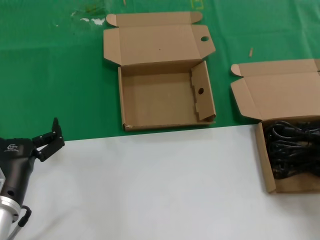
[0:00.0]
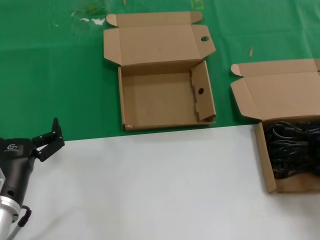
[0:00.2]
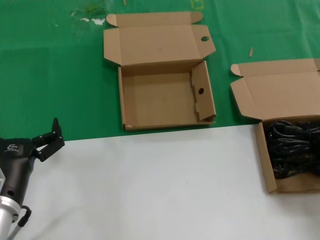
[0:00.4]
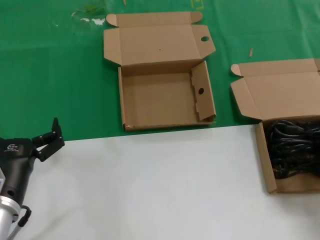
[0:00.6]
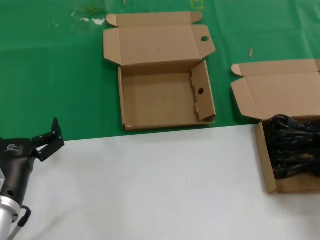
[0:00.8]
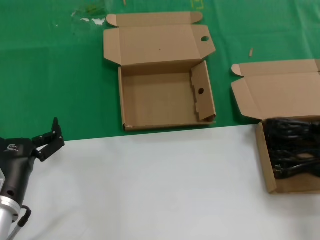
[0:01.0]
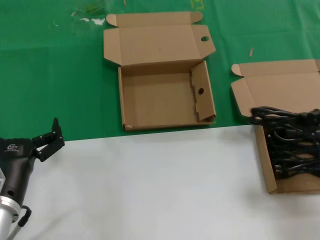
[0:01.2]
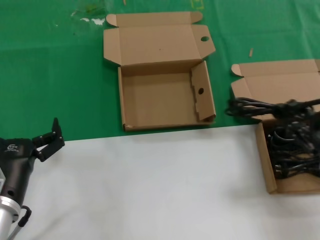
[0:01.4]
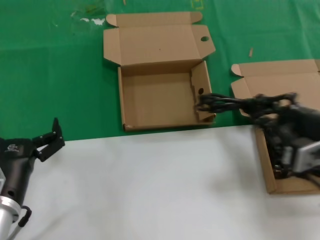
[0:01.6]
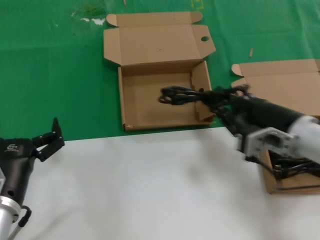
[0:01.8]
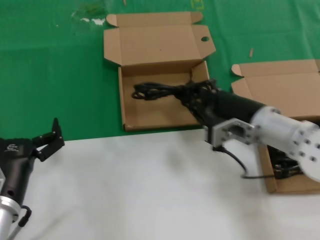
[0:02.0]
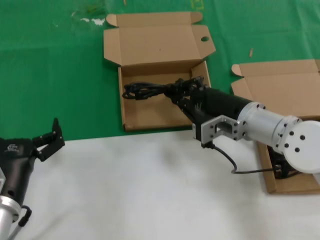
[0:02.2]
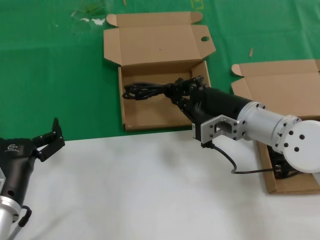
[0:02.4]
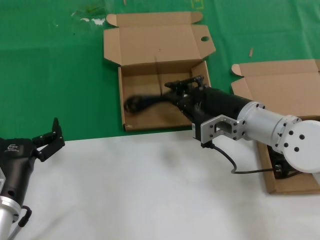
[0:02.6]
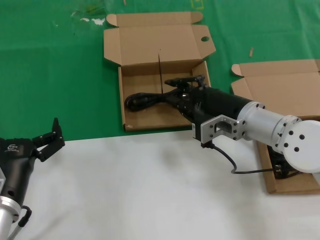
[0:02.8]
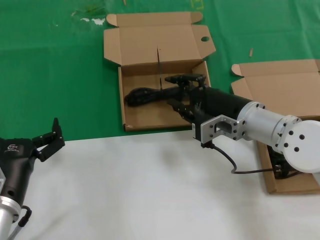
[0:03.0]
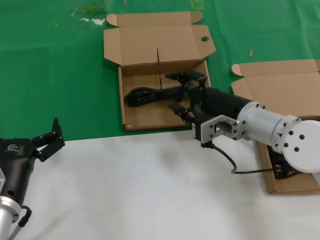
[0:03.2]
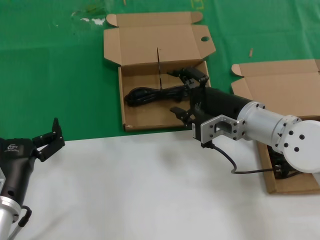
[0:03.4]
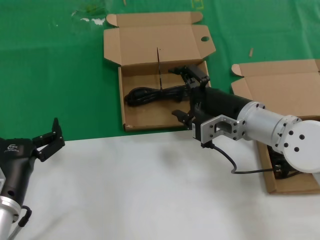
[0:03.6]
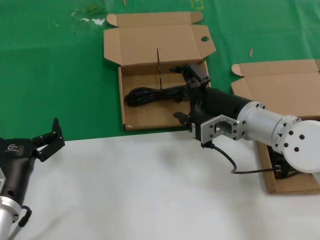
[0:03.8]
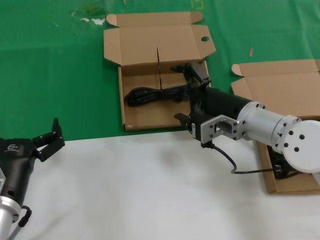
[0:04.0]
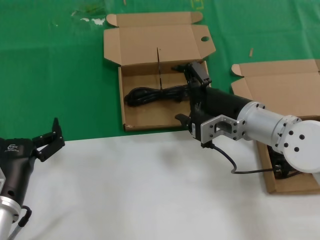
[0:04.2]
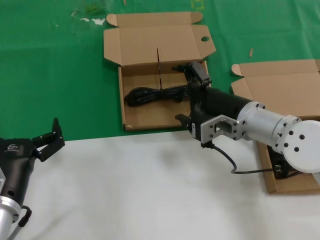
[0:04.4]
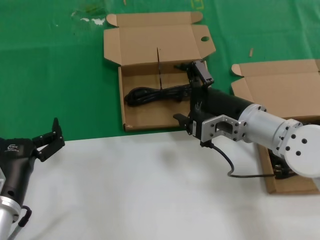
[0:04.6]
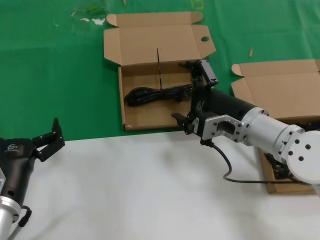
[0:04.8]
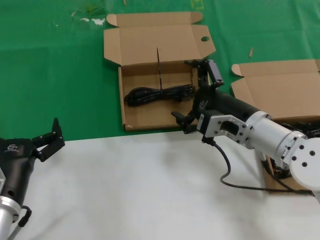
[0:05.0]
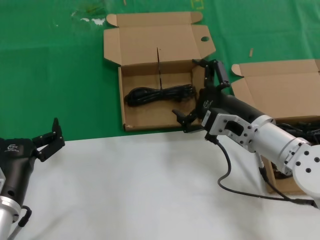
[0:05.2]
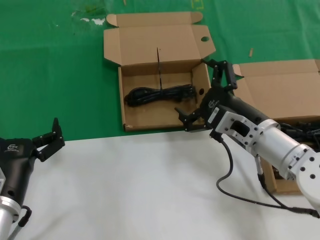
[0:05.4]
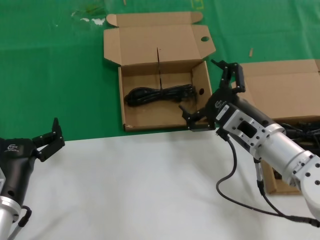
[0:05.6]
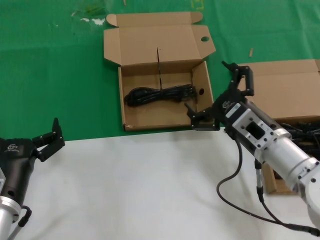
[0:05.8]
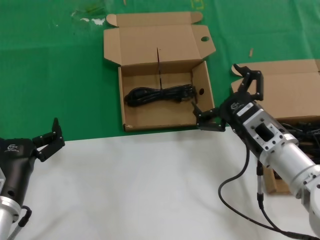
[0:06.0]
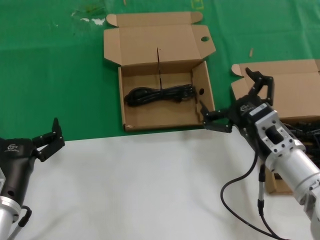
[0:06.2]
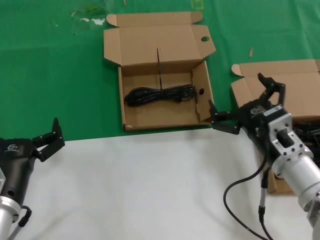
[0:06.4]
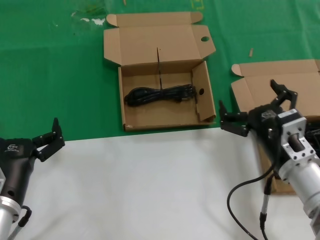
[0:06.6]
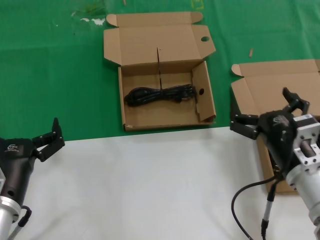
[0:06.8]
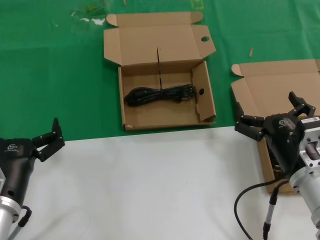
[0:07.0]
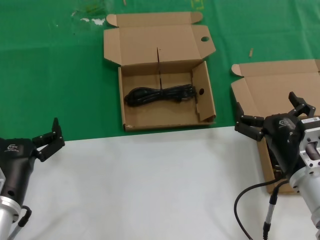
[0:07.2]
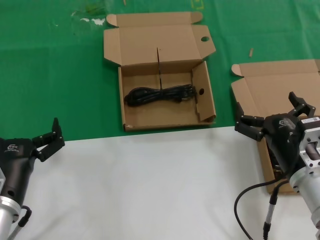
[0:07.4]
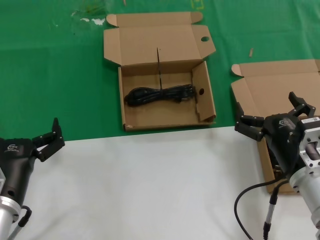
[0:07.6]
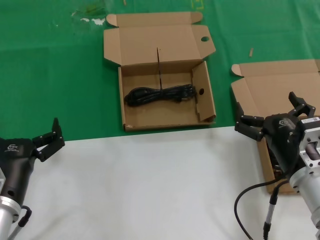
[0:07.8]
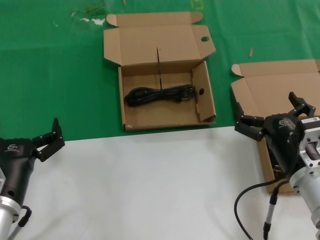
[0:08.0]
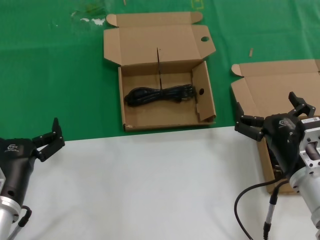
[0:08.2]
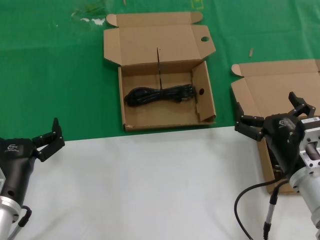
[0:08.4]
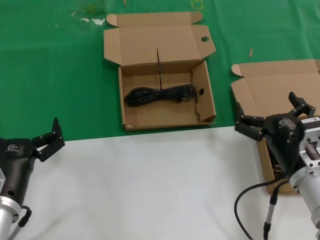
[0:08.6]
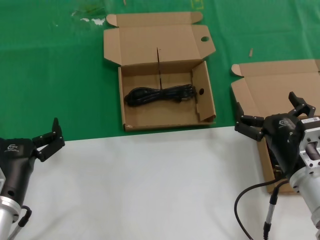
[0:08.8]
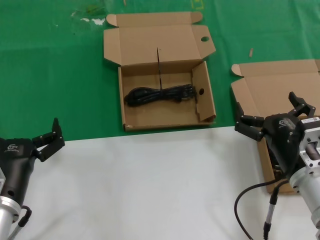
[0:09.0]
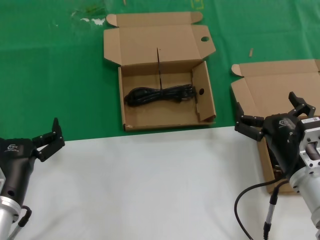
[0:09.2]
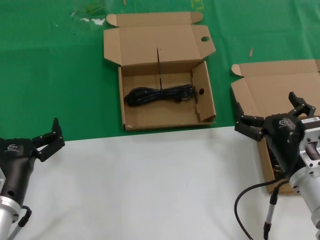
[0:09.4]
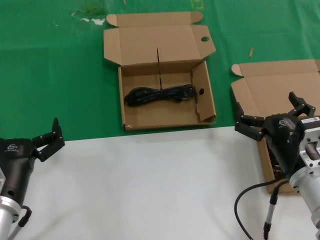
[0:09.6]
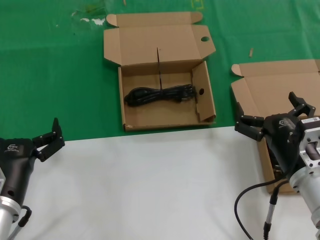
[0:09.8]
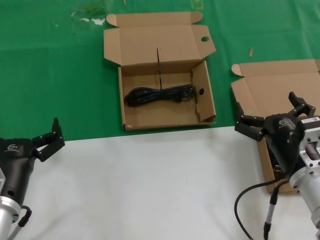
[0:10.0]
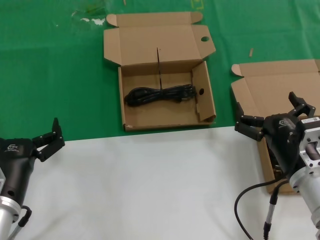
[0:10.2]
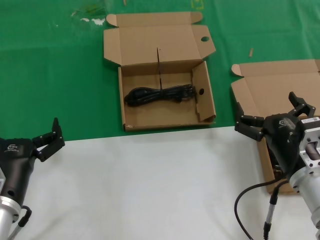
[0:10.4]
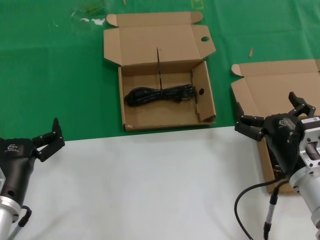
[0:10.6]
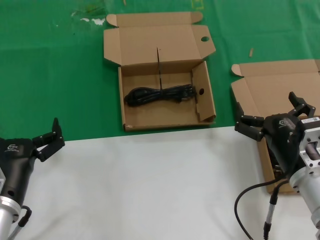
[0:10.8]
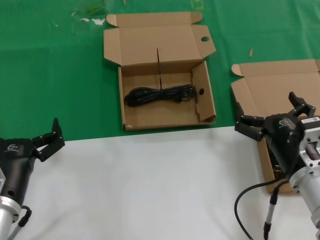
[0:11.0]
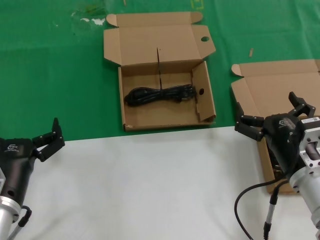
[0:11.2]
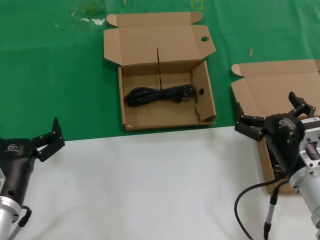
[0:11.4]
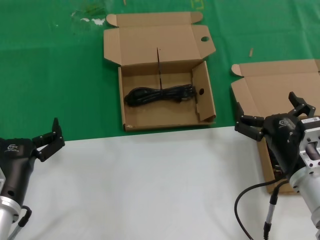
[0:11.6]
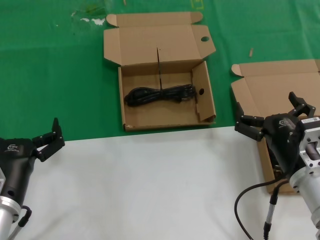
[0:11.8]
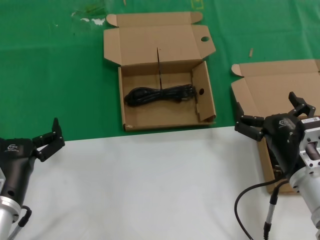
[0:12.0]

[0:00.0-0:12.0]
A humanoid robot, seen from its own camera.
Task of the whole recording: take the parts from the box containing them and put them into an empty box.
Step, 0:01.0 to 0:03.8: Place the data cable in the another box.
0:00.0 to 0:01.6: The right hand travels to the left by roughly 10 cm.
0:01.6 to 0:03.0: The right hand moves forward and to the left, roughly 20 cm.
0:03.0 to 0:04.4: Both hands stay about where they are.
0:04.4 to 0:06.0: The right hand moves backward, some 5 cm.
0:06.0 to 0:07.6: The right hand changes place by roughly 5 cm.
0:07.6 to 0:12.0: Both hands stay put.

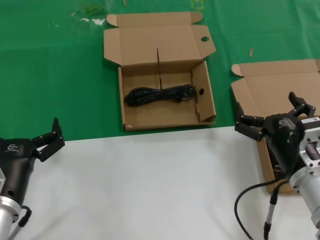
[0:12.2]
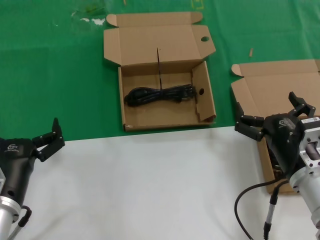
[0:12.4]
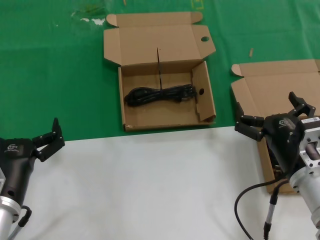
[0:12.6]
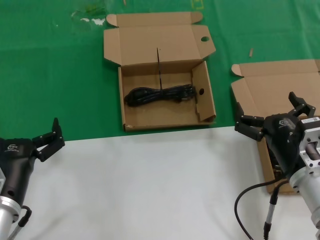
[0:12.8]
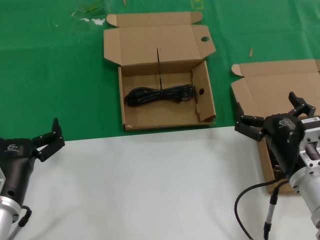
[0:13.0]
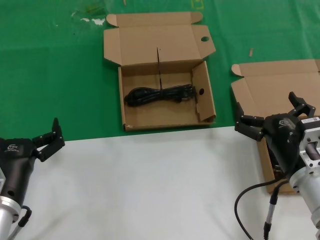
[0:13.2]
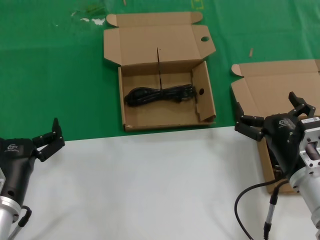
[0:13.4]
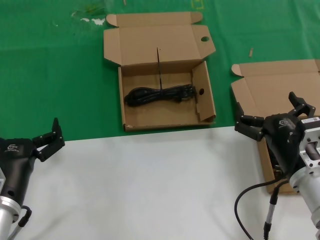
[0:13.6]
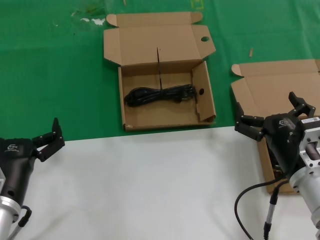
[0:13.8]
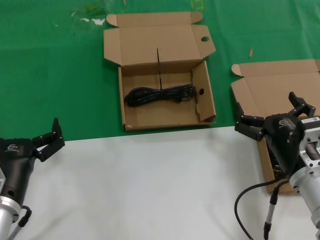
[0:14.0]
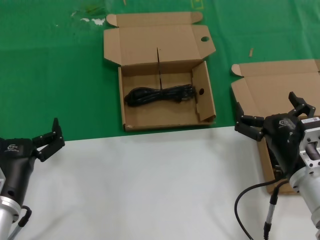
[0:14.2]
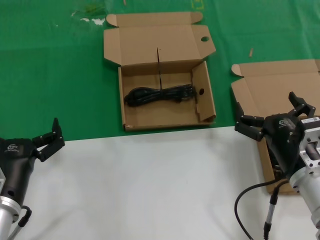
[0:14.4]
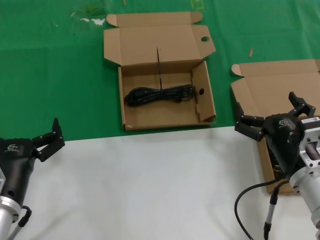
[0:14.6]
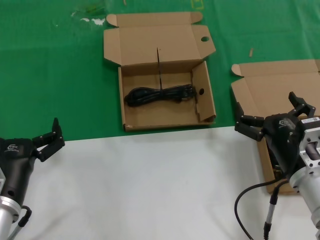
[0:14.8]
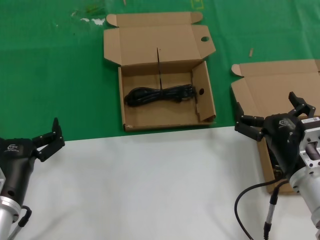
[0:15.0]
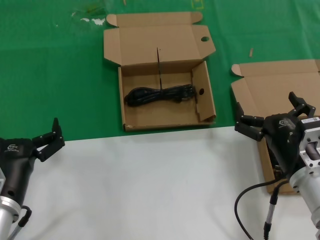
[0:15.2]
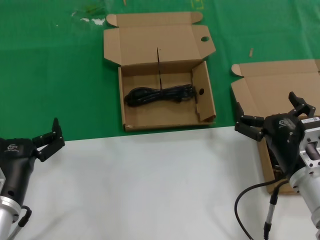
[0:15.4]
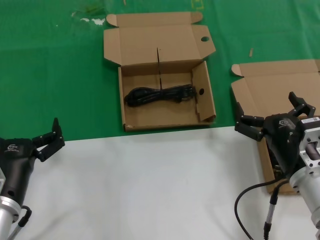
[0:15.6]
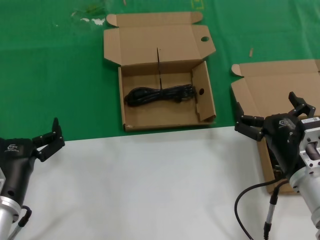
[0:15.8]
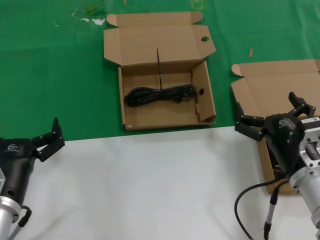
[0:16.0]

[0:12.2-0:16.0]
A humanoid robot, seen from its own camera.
Task of the whole recording: take the parts from the box containing them and put them into an empty box.
0:12.2 to 0:16.0: Both hands stay put.

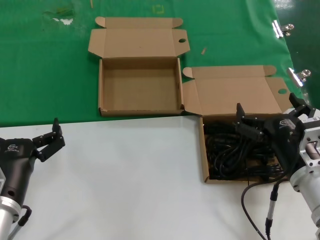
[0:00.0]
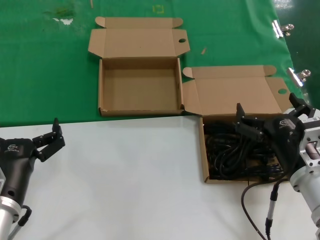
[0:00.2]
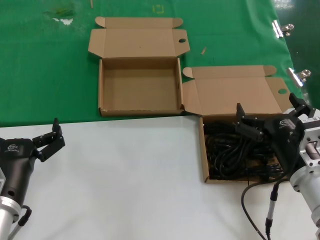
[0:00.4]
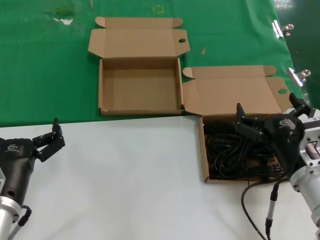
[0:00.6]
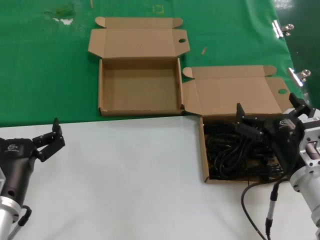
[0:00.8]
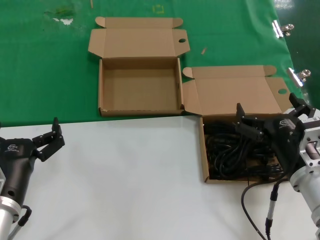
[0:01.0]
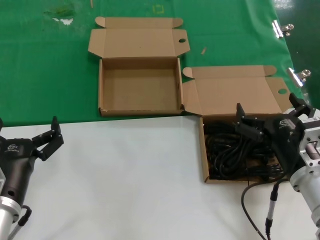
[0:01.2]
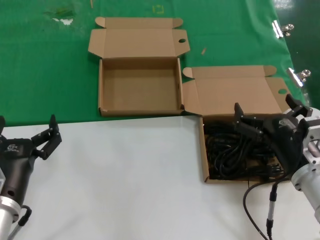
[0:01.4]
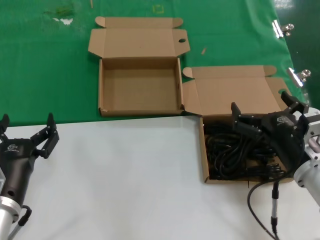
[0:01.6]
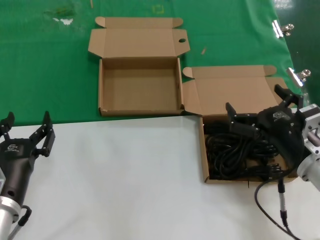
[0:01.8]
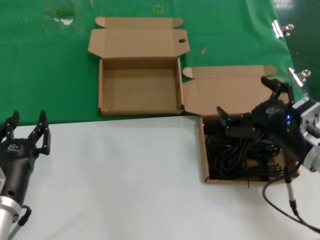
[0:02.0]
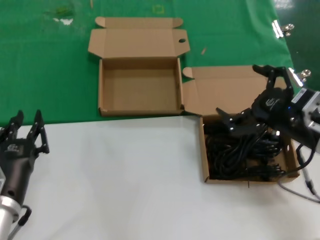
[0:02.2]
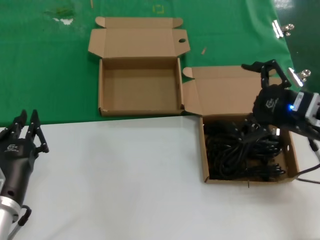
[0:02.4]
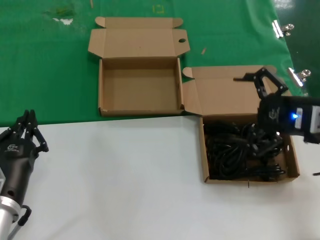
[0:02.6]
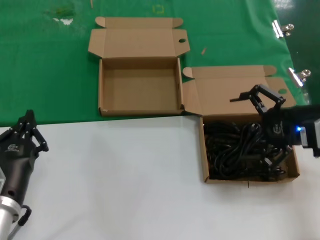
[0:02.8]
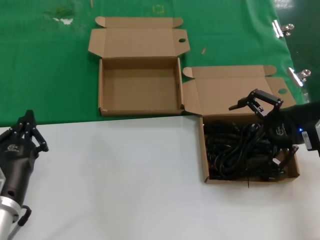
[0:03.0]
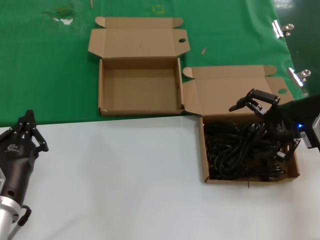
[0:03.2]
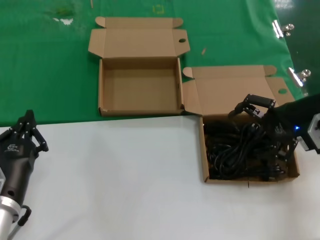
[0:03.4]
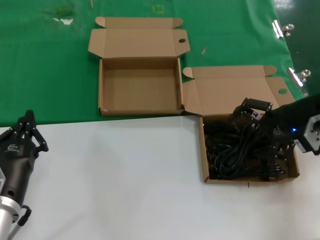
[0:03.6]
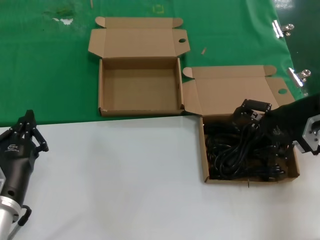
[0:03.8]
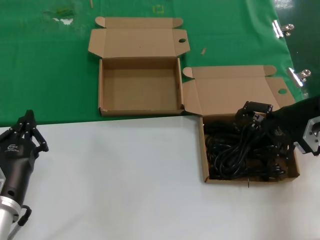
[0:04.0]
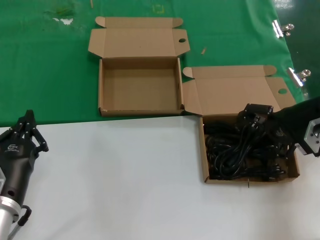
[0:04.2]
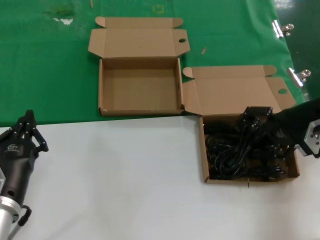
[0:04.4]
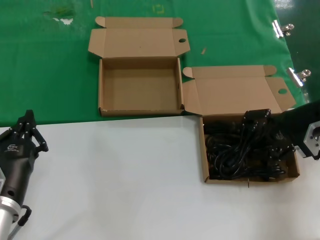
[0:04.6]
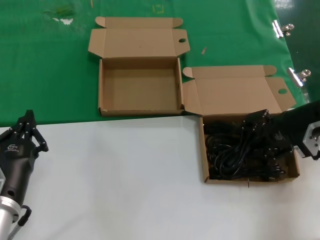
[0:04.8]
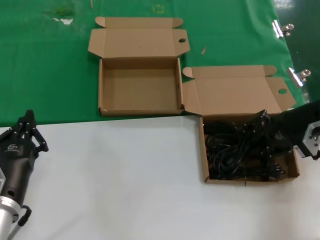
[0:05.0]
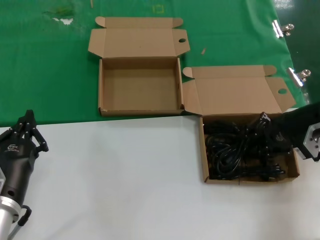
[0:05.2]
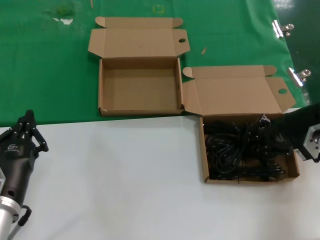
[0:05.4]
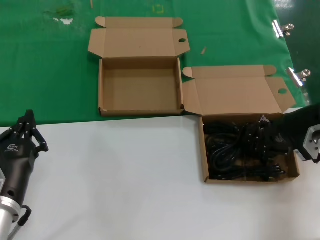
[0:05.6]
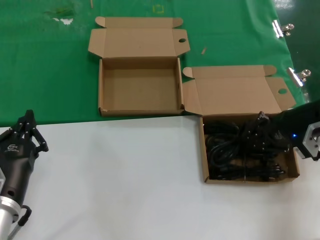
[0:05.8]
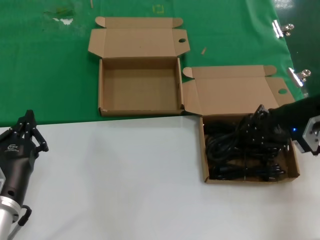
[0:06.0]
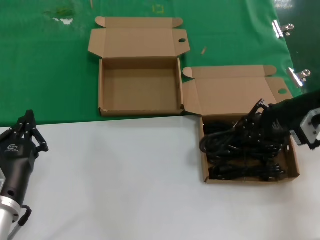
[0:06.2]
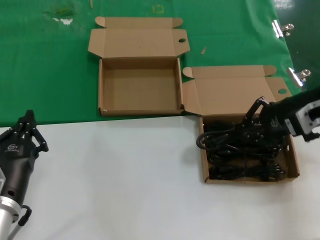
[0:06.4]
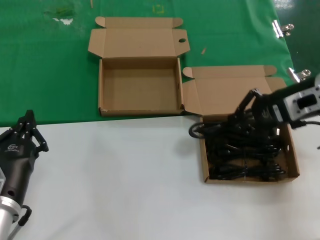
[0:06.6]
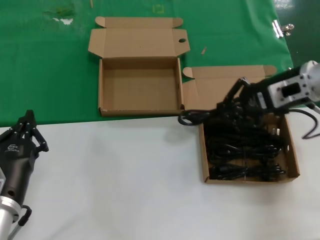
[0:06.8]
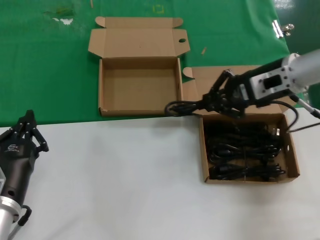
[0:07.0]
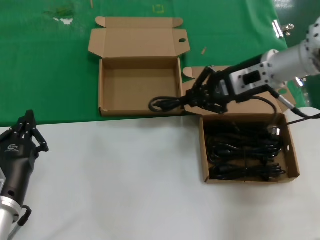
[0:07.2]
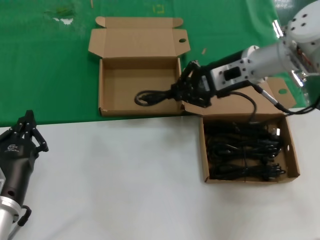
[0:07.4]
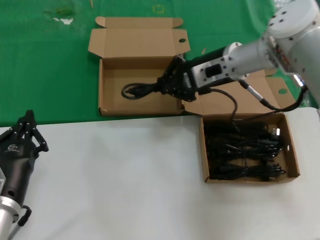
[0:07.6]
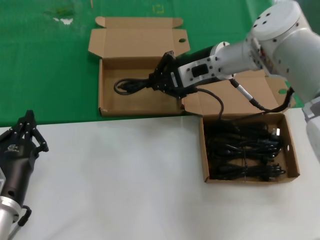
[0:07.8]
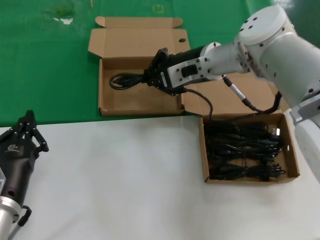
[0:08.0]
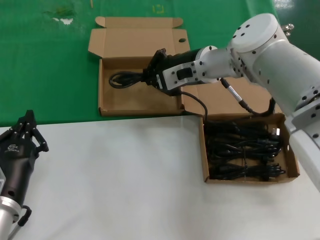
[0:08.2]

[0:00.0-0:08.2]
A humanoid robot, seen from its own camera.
Task of the whole recording: take the parts from the box containing them and put them into an empty box.
Step, 0:00.0 to 0:05.2: Grasp the data cable.
0:00.0 to 0:01.6: The hands stay close to where they were, moving slightly.
0:01.6 to 0:03.2: The right hand is displaced upward, forward and to the right by some 20 cm.
0:03.2 to 0:05.0: The right hand travels downward by roughly 5 cm.
0:05.0 to 0:06.6: The right hand heads upward, covering some 5 cm.
0:06.6 to 0:08.2: The right hand is displaced to the left and forward by some 20 cm.
